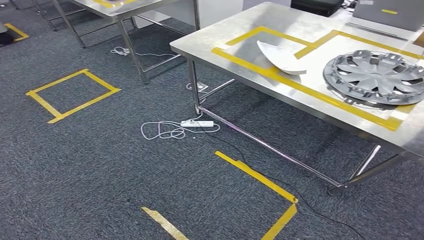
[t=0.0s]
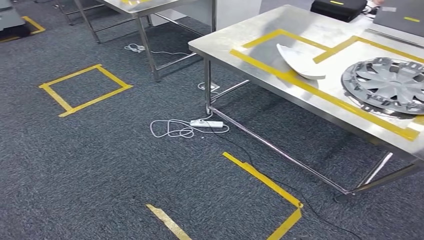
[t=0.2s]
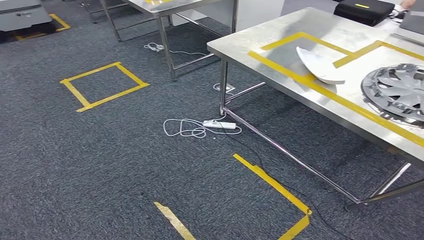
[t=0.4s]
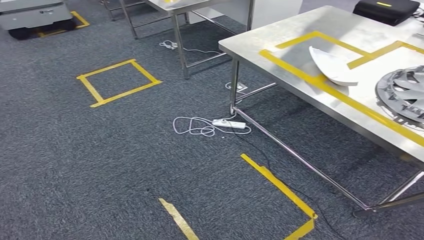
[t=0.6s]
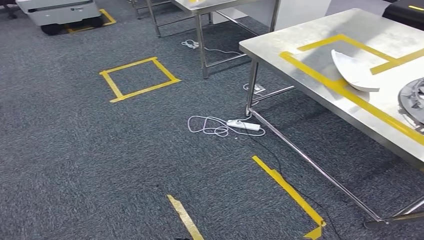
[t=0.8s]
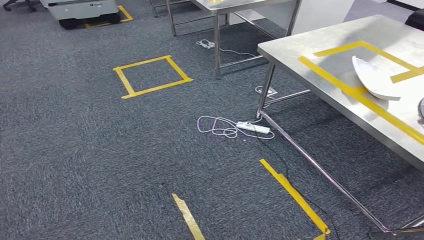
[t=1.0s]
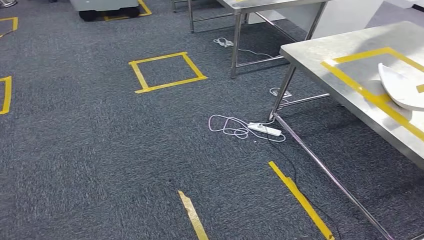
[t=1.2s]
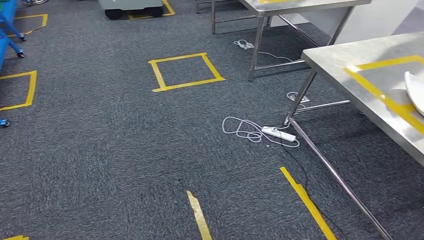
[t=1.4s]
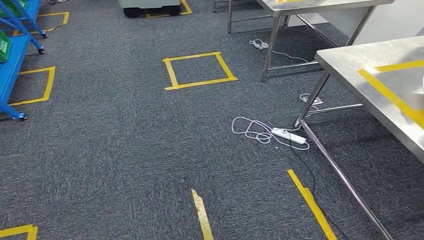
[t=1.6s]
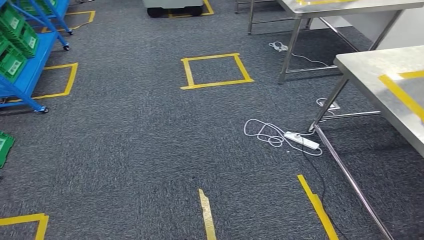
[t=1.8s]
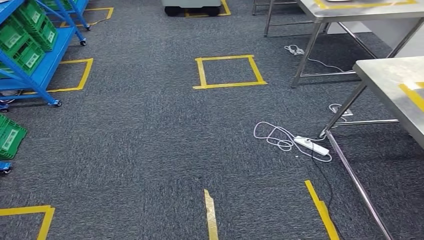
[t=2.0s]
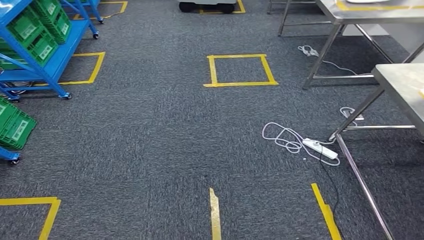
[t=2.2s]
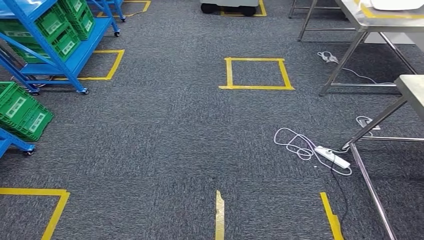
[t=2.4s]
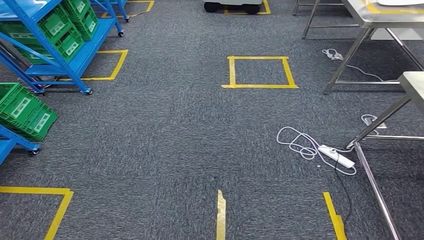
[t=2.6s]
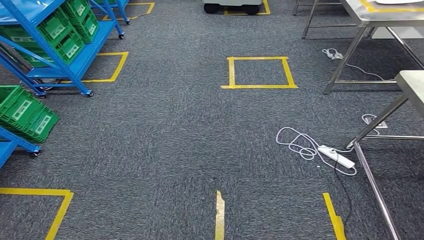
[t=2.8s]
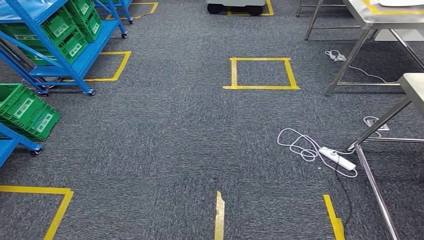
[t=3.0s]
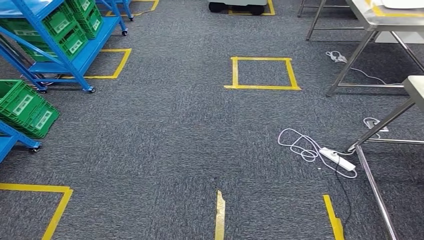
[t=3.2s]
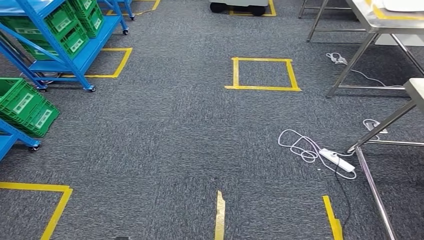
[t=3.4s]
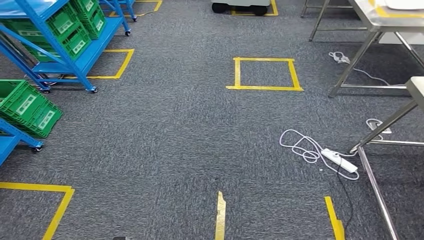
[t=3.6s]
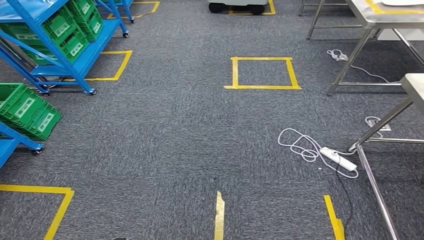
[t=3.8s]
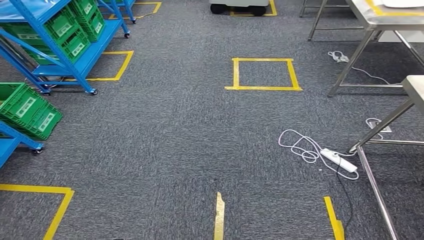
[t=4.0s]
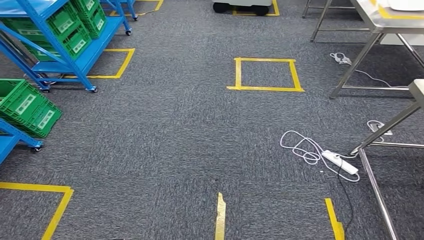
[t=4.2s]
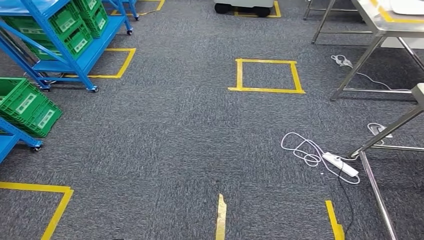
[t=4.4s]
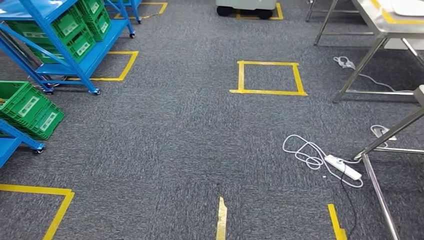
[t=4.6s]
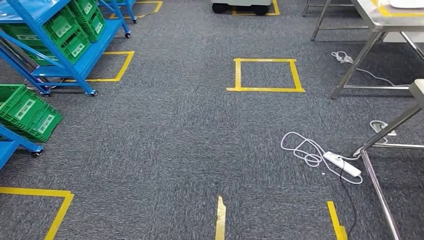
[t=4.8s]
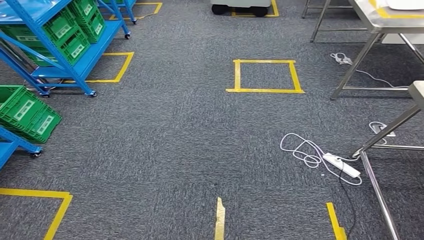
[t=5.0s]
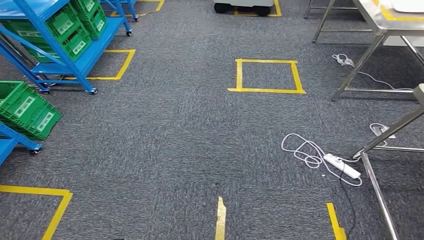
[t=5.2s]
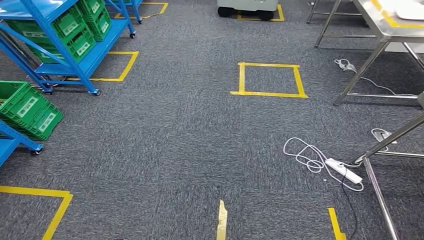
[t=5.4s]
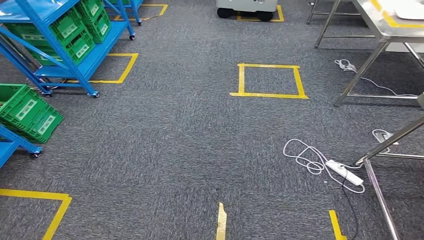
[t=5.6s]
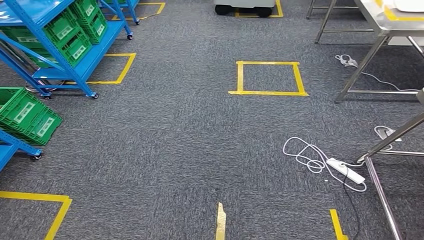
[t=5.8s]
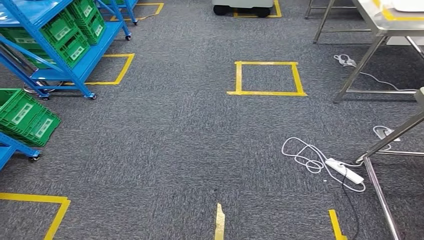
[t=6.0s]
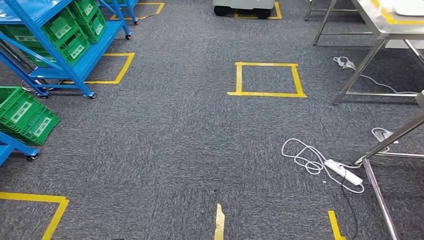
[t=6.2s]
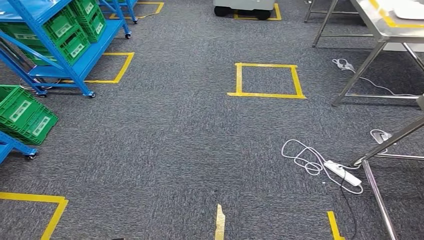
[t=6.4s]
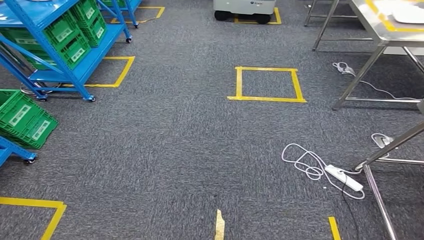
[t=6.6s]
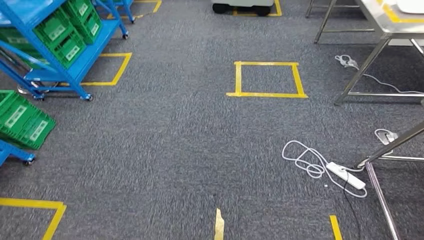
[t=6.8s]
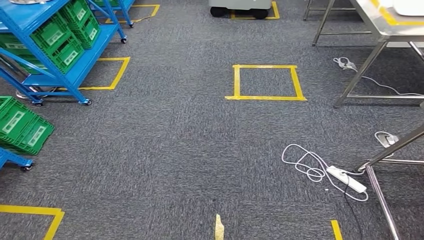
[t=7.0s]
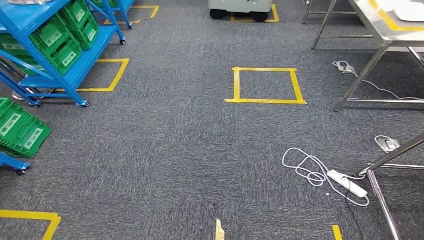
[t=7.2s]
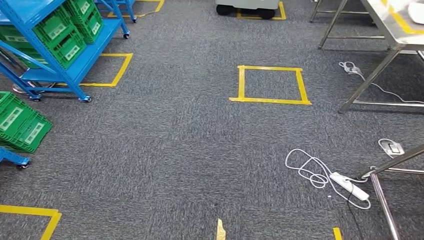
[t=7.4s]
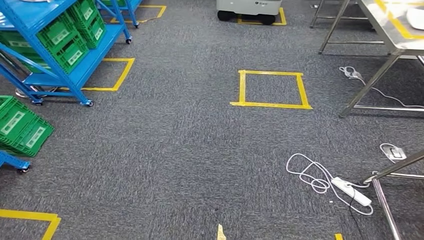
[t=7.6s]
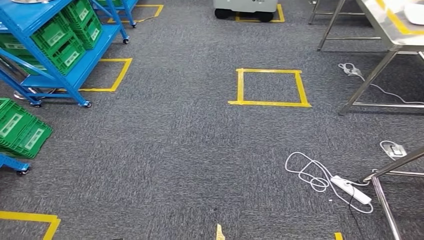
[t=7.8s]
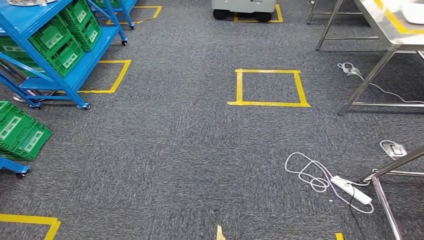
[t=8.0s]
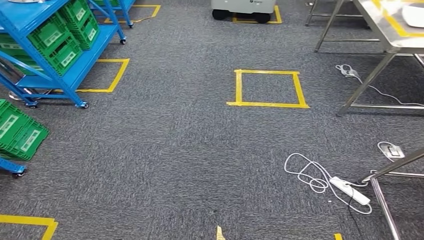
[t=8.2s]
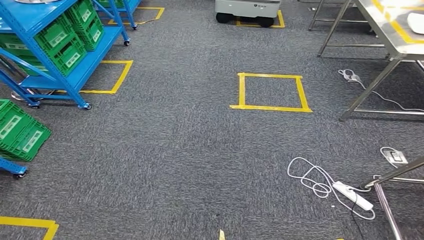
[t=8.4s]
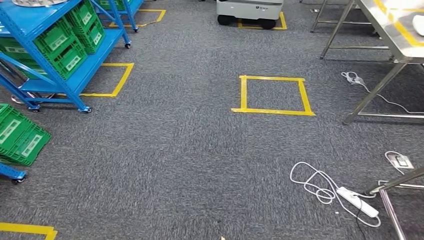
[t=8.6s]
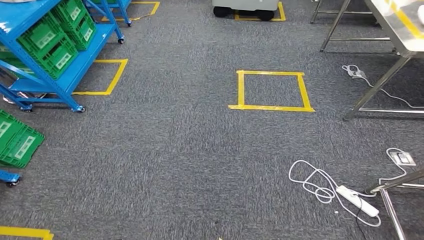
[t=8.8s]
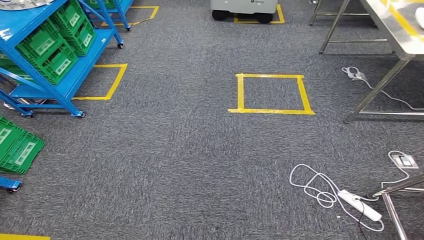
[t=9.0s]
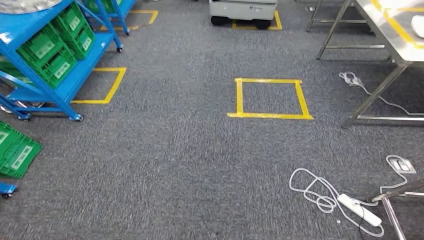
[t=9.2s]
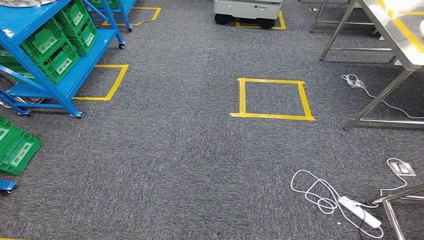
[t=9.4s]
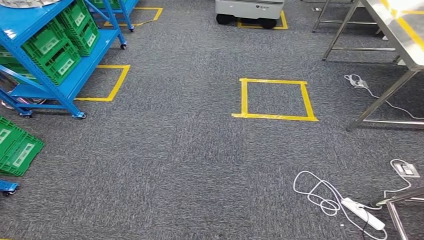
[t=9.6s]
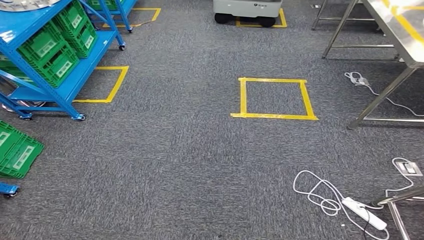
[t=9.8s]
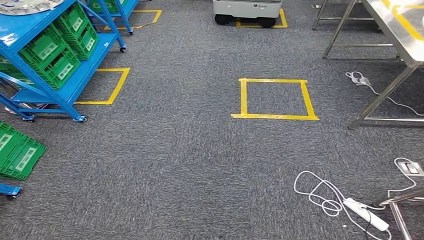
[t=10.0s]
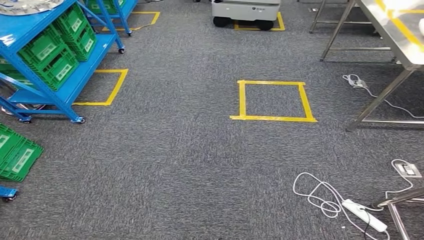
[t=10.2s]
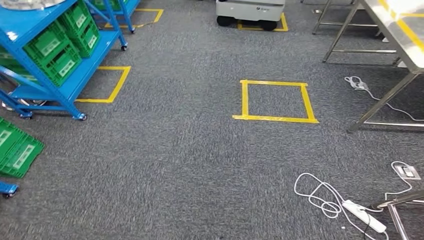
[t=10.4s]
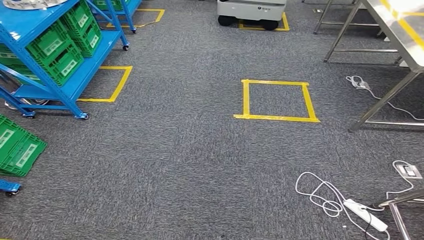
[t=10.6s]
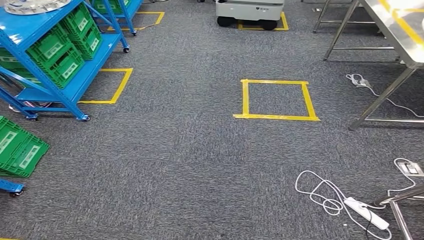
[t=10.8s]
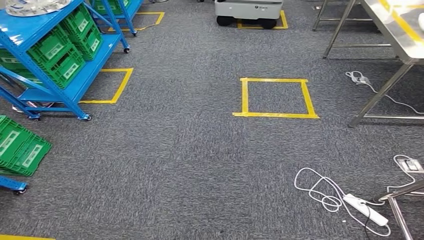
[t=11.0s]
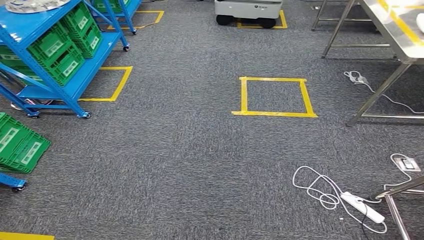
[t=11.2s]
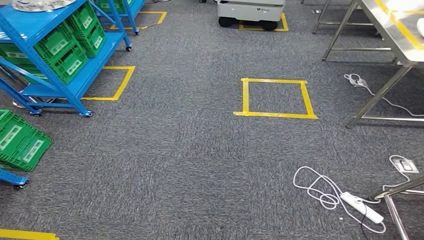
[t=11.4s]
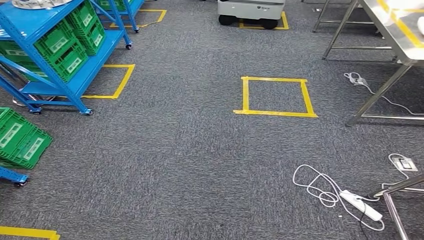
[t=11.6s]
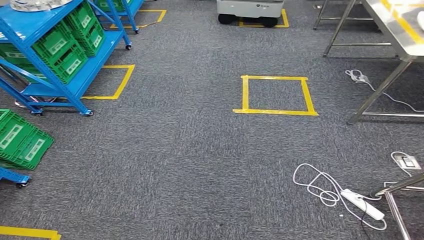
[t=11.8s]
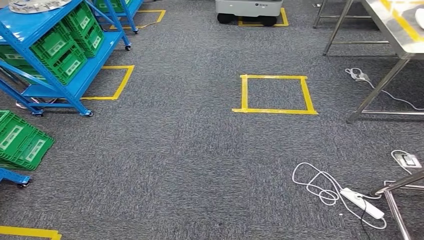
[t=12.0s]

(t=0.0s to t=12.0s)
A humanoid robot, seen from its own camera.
t=4.4s - t=6.0s: Neither hand changes place.
t=7.6s - t=9.0s: Both hands stay put.
t=9.0s - t=10.4s: The hands stay close to where they were, moving slightly.

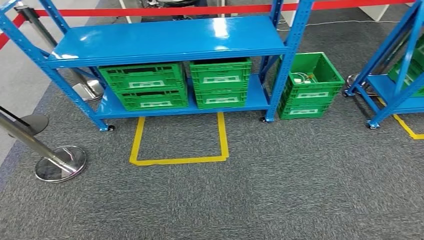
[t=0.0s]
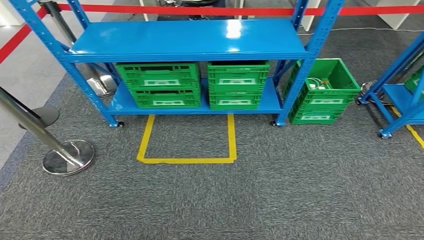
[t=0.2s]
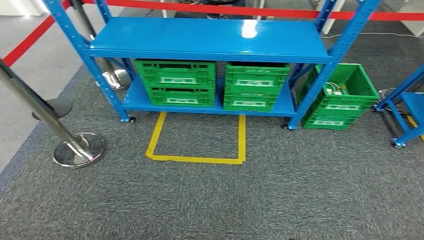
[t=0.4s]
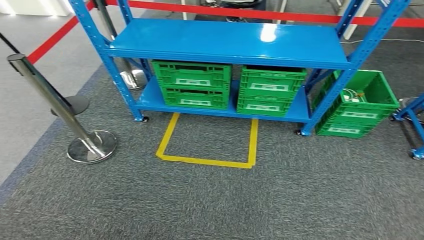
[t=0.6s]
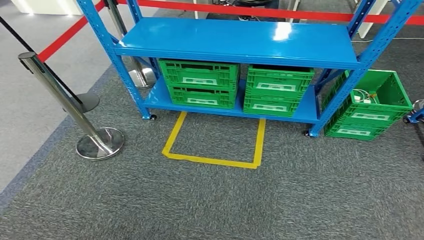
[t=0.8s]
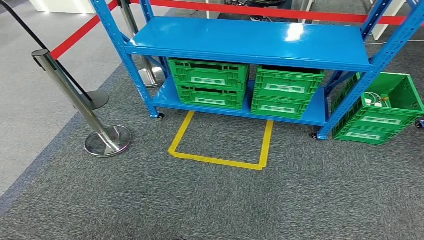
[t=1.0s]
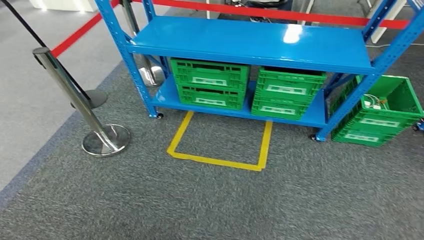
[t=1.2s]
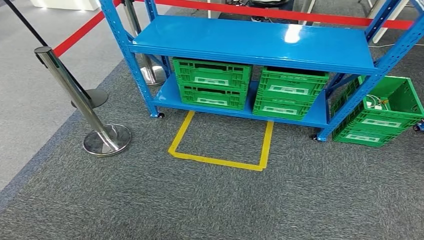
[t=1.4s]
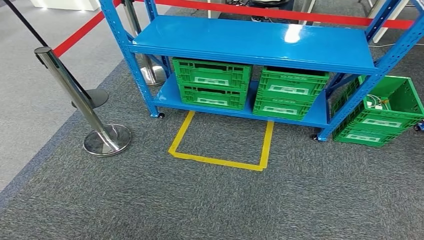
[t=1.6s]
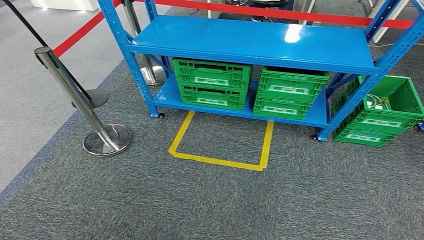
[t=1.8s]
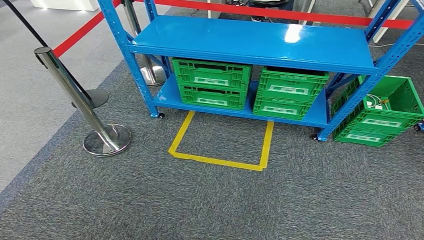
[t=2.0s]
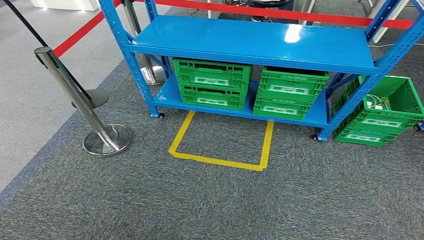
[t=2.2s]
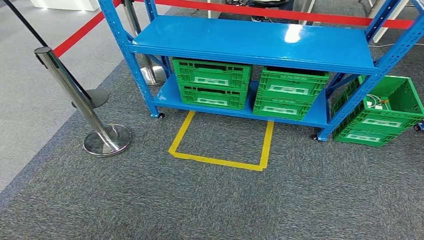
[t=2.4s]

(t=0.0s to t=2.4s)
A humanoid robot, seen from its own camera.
Step, t=0.0s - t=2.4s: Return to the initial position at the workbench.
t=1.2s - t=2.4s: Neither hand changes place.
